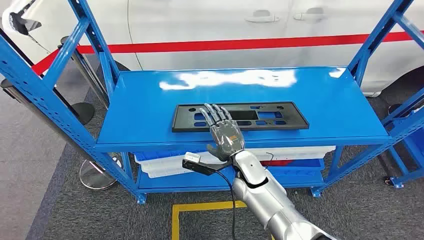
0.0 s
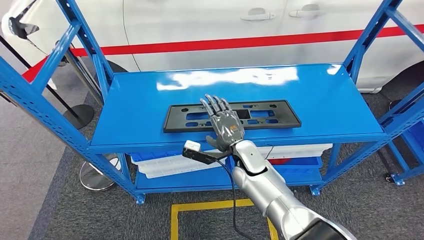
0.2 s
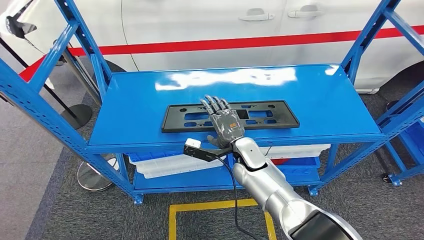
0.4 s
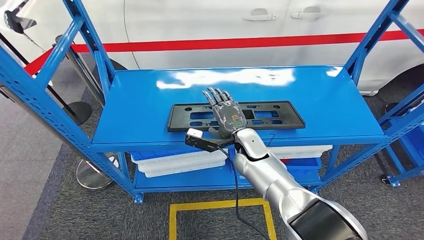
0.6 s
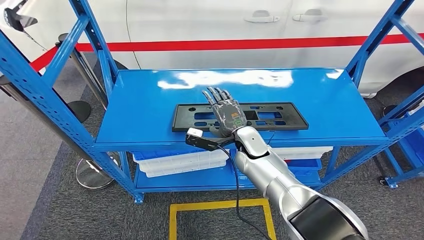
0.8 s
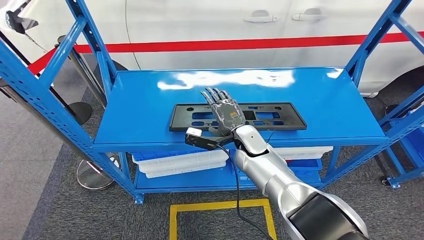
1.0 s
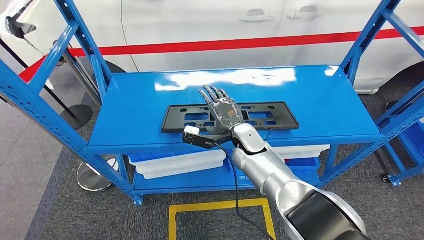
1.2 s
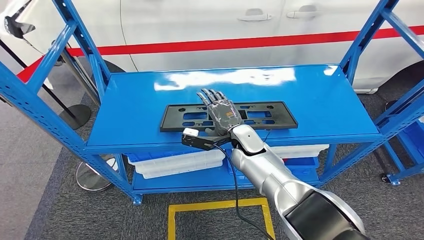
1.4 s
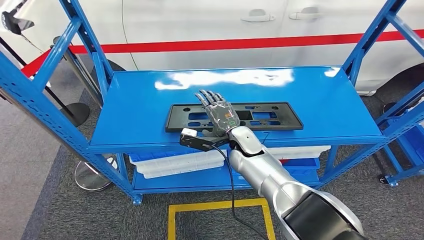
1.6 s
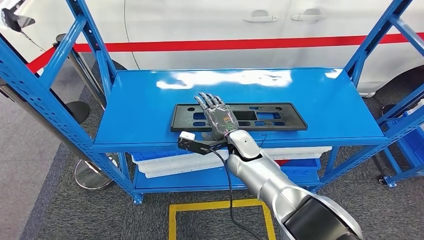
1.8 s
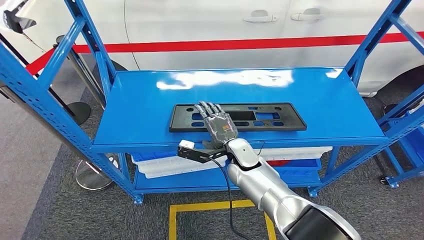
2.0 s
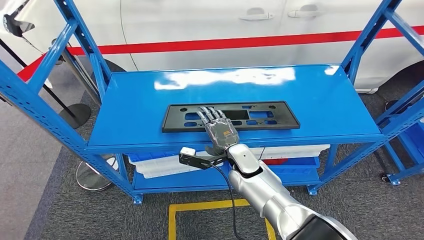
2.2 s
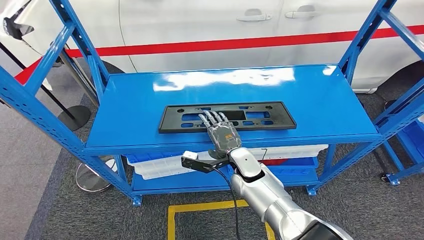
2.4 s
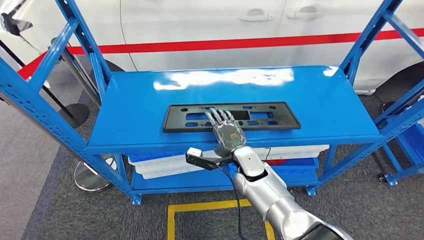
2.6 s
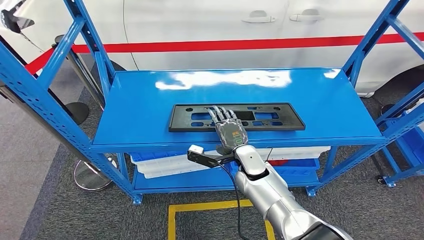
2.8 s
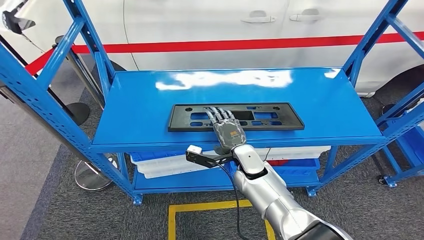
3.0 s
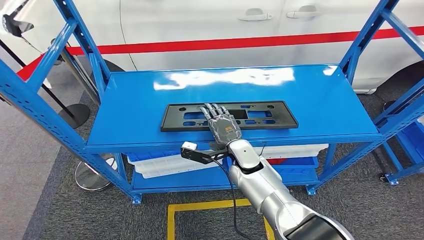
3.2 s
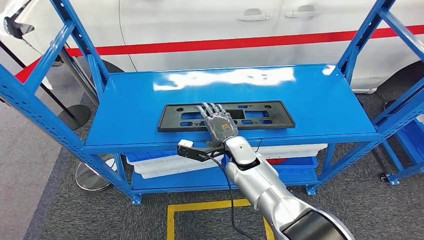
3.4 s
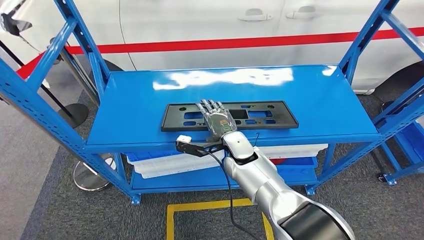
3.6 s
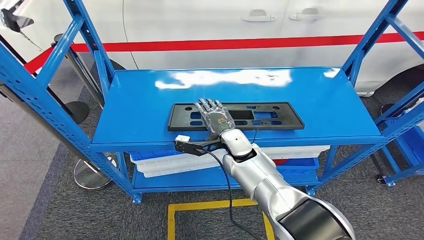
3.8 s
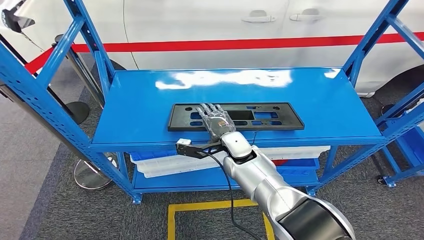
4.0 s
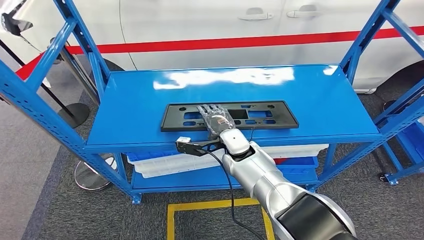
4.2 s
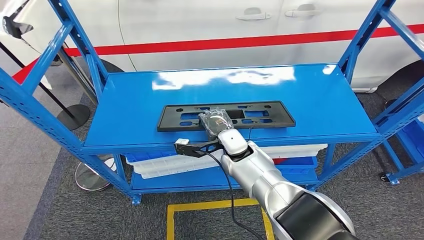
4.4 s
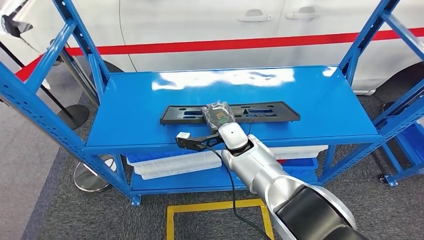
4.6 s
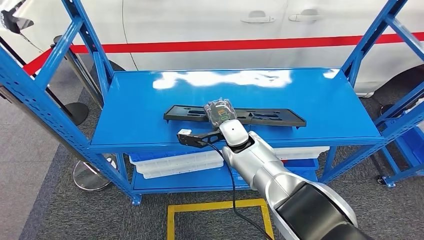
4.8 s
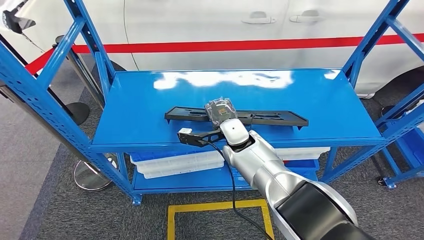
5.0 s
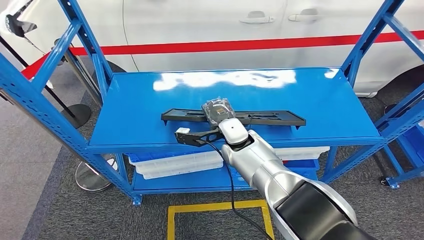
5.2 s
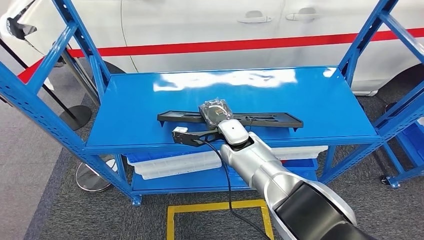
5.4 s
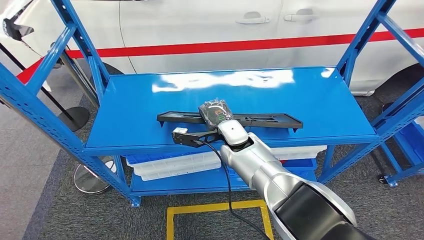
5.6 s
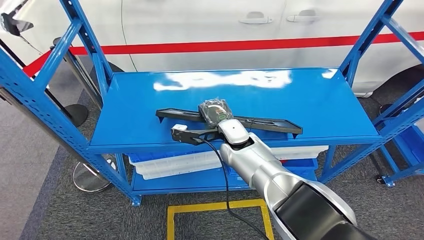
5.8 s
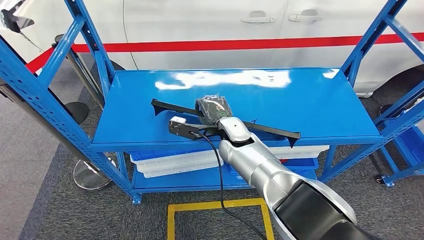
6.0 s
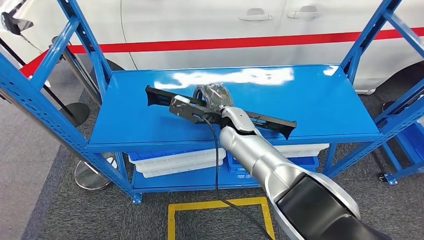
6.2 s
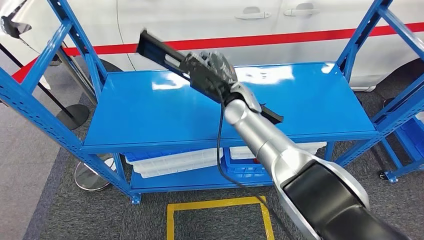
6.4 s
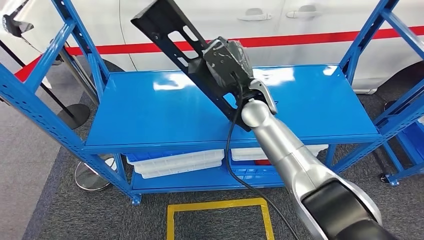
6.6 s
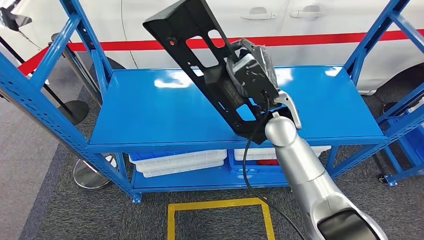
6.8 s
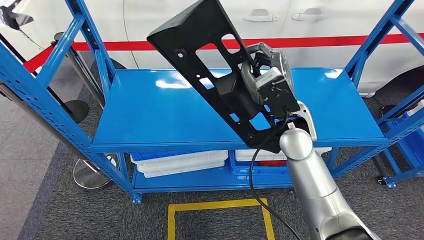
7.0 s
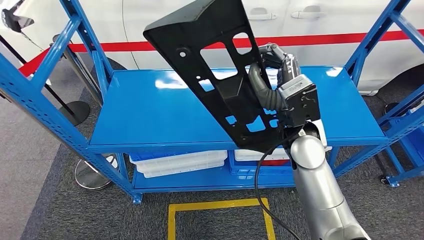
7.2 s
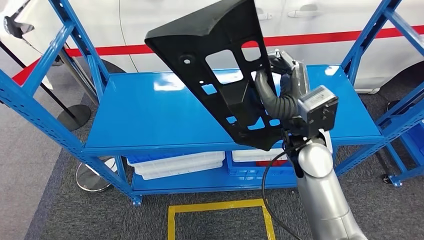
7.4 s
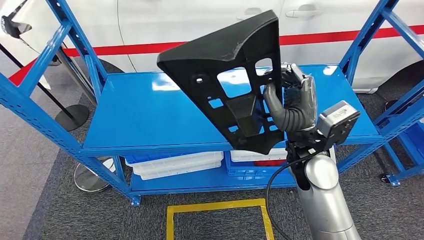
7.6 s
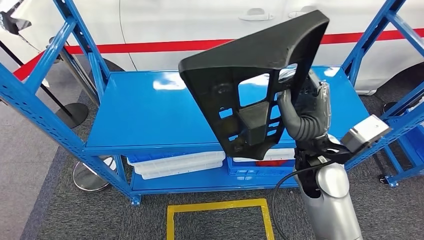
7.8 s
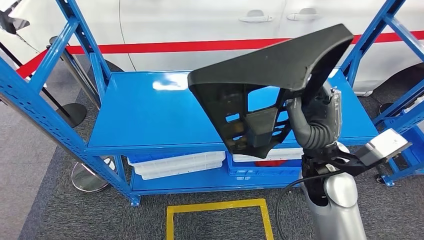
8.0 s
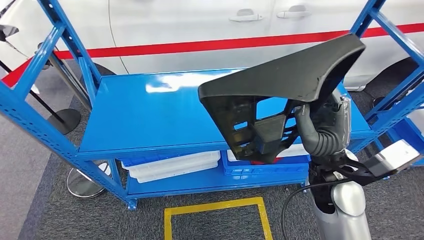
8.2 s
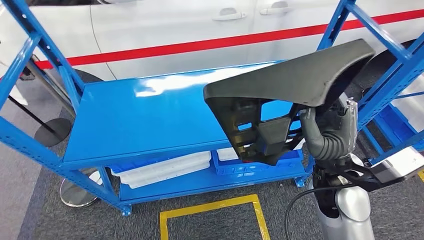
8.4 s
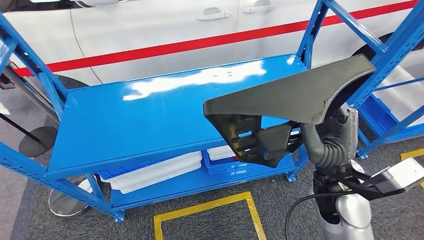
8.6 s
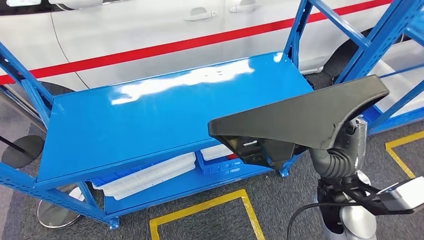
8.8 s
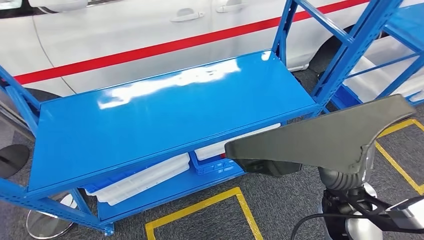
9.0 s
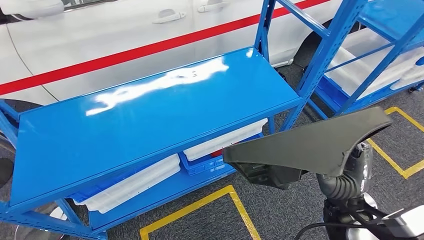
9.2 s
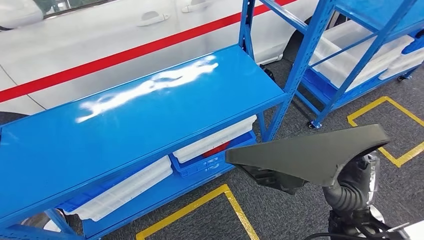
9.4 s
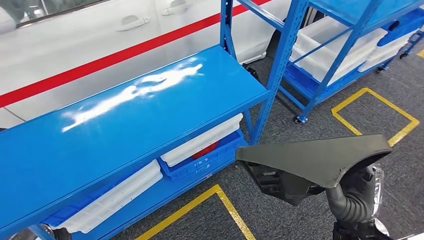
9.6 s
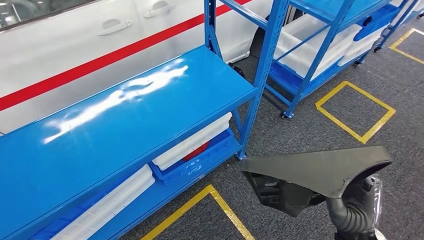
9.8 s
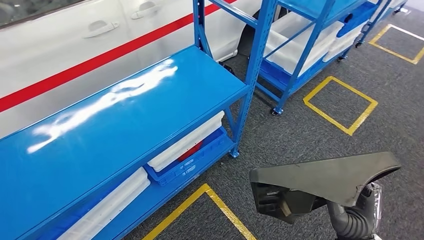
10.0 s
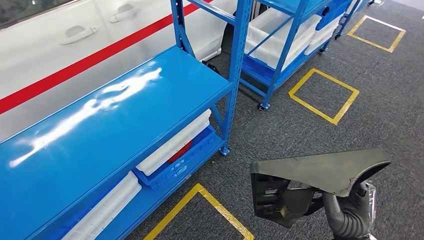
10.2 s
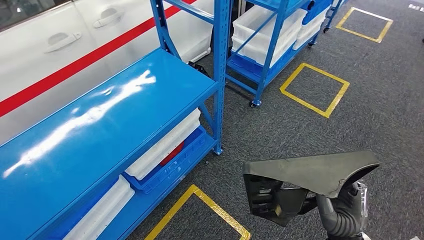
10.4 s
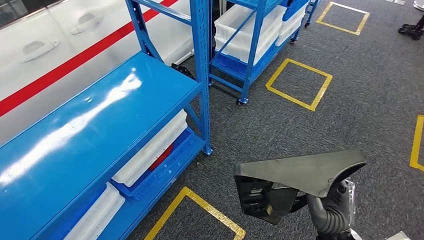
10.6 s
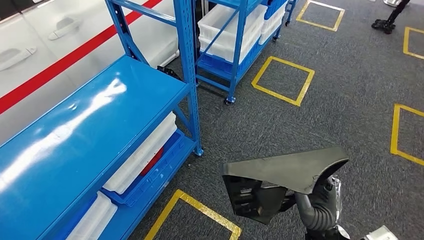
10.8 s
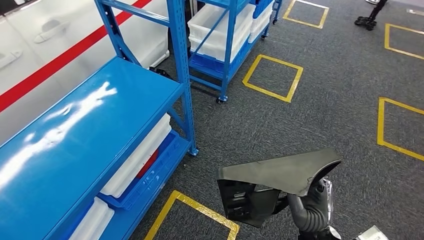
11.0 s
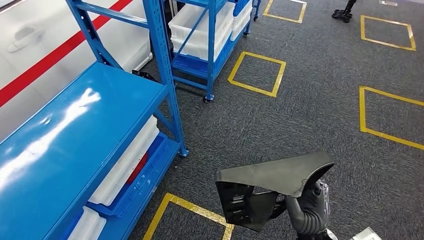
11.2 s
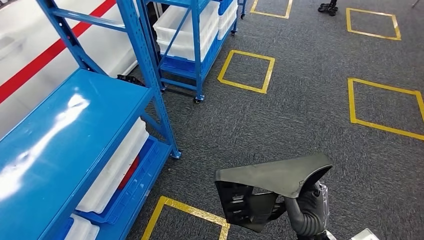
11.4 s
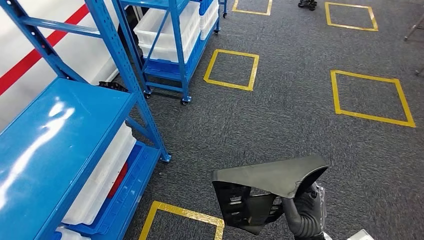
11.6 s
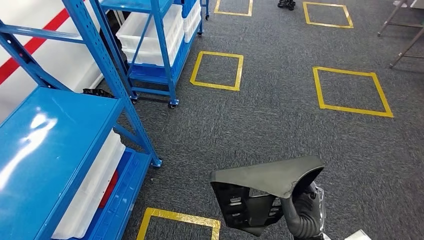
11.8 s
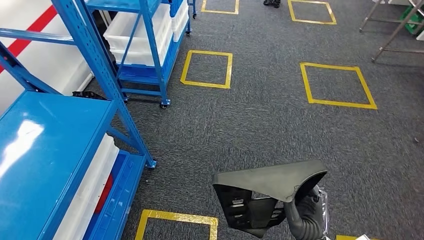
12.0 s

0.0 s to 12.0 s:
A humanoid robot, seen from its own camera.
Step, 0.0 to 7.4 s: Pick up the large material from the shelf.
1.6 to 3.0 s: The hands stay close to where they were, moving slightly.

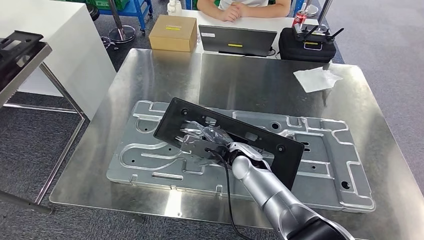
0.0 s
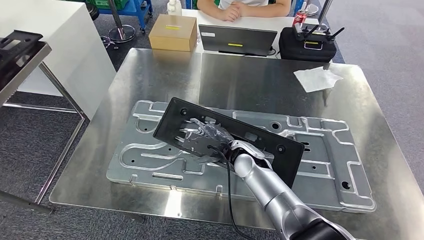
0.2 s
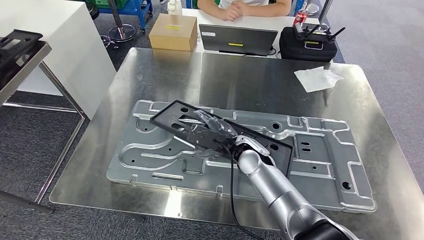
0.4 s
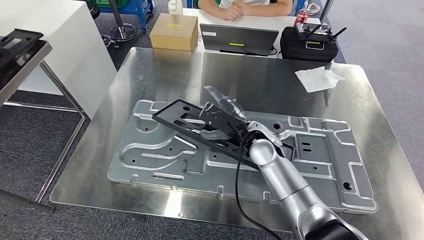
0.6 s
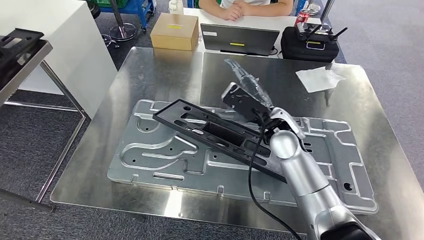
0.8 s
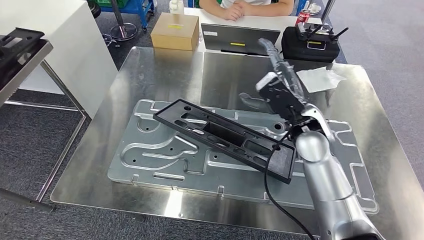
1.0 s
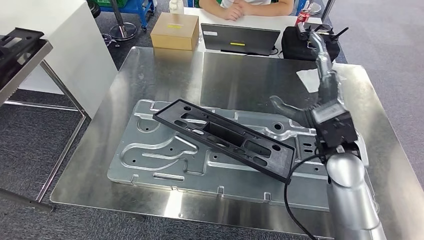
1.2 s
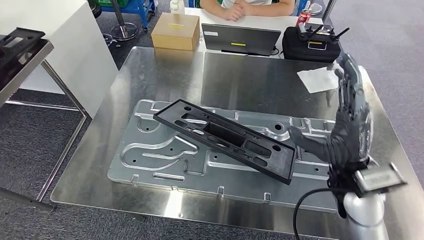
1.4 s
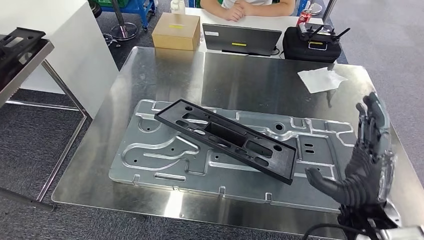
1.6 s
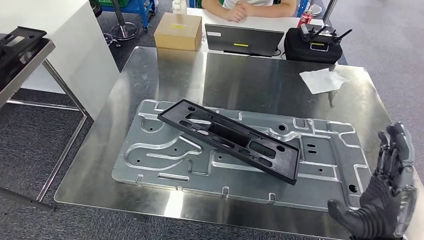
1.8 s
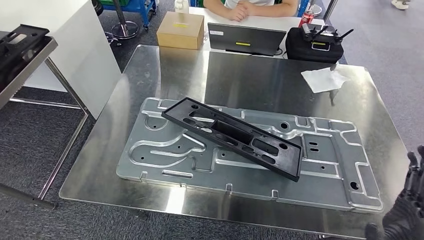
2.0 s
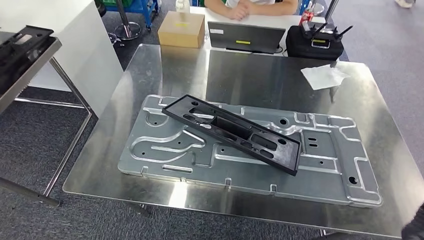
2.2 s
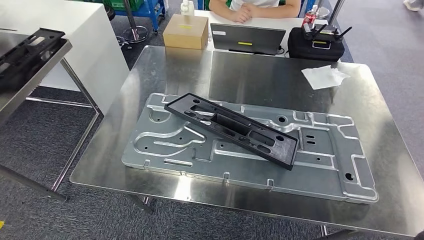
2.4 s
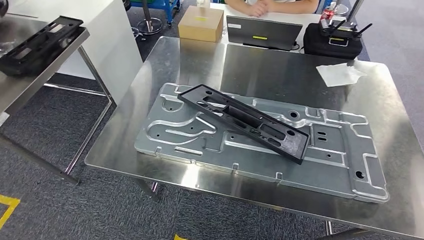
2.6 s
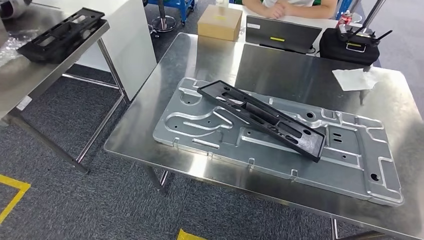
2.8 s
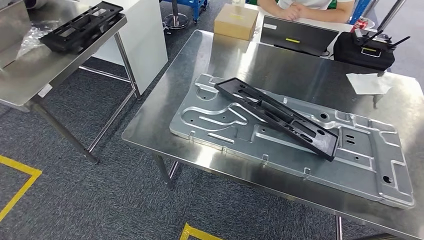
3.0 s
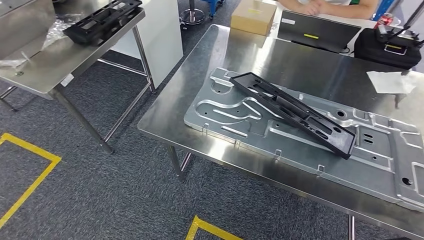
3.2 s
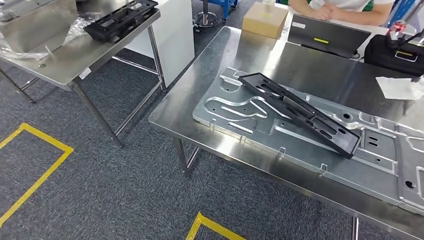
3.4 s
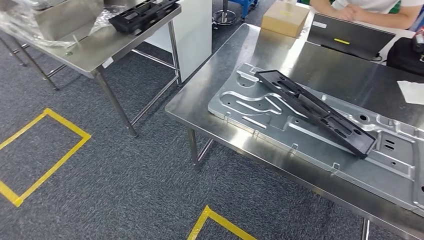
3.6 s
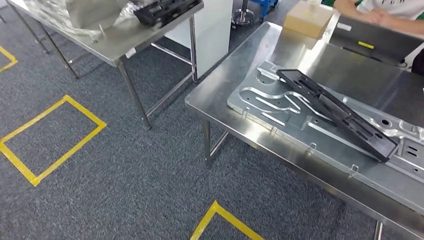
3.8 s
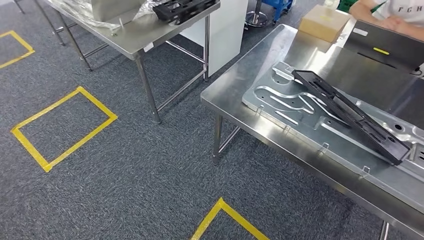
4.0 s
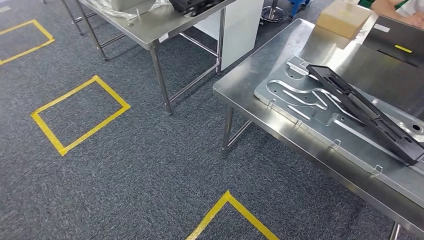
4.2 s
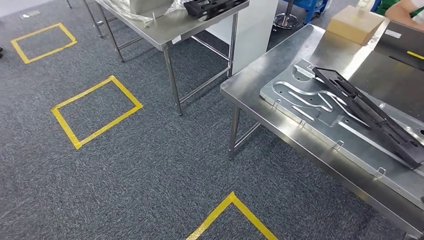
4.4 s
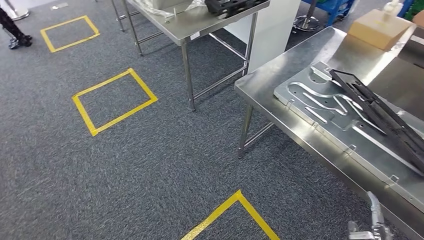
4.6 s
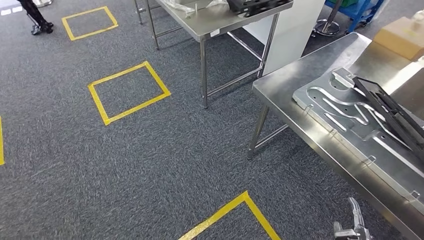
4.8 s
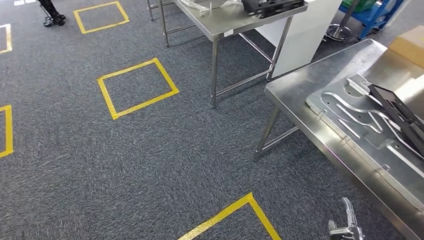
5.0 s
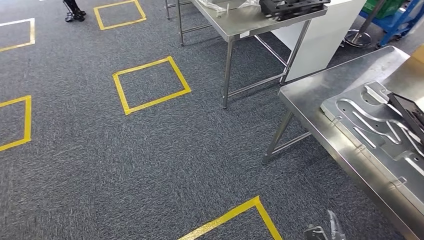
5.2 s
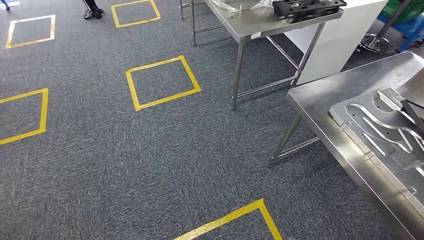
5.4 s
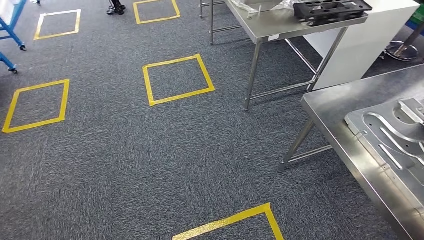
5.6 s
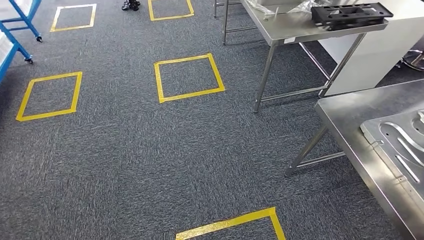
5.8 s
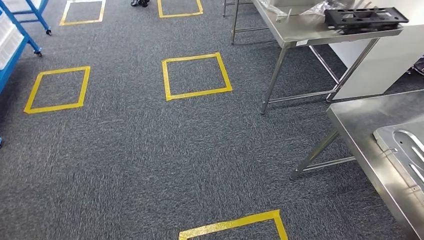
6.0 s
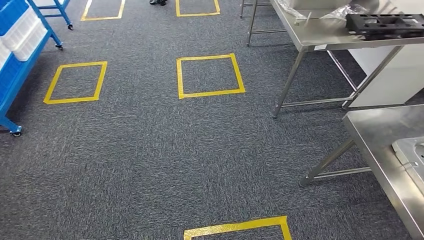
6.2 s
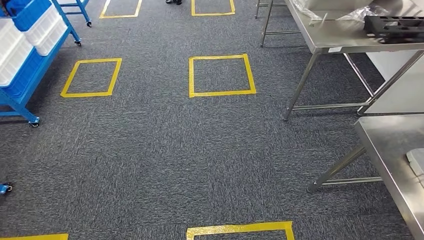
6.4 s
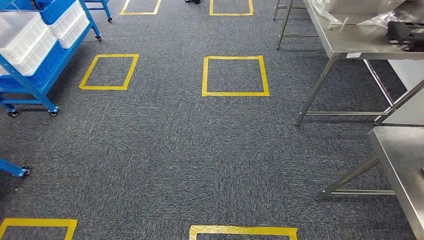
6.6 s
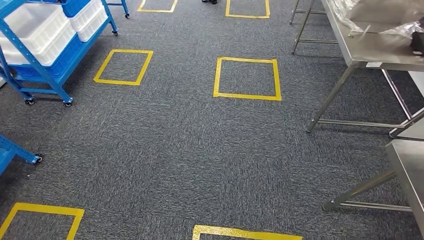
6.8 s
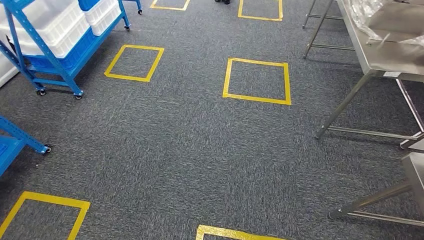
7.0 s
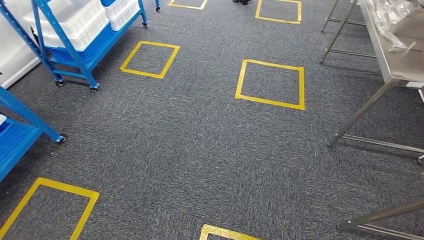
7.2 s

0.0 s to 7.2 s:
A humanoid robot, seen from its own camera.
Step, 0.0 to 3.6 s: Insert the large material into the corresponding slot on the workbench.
